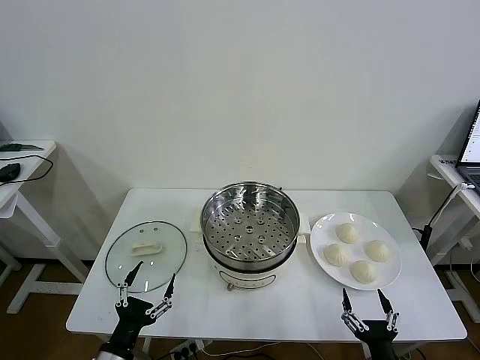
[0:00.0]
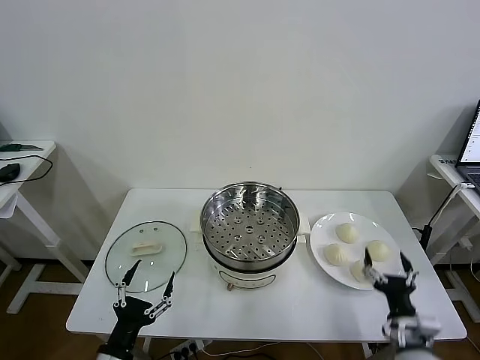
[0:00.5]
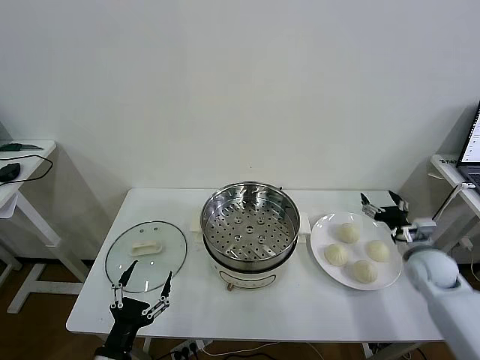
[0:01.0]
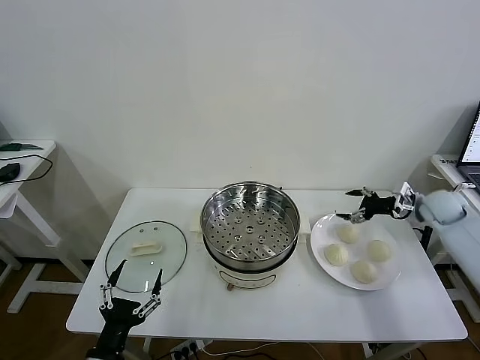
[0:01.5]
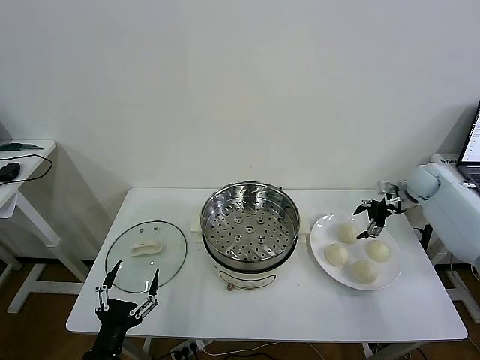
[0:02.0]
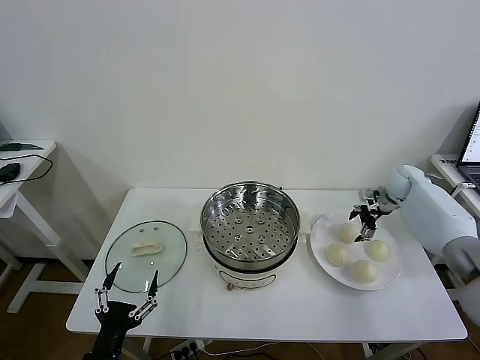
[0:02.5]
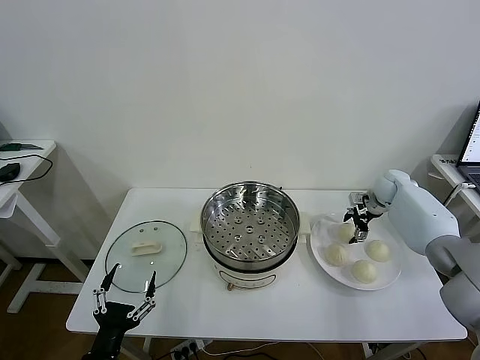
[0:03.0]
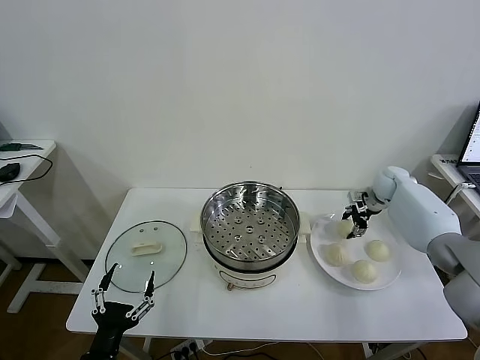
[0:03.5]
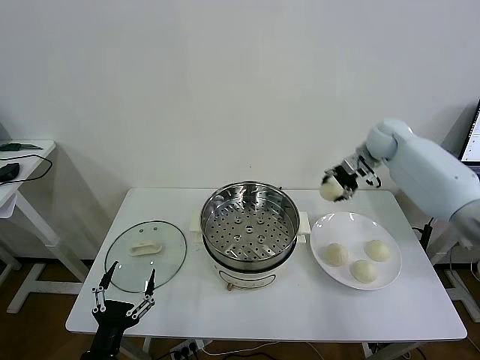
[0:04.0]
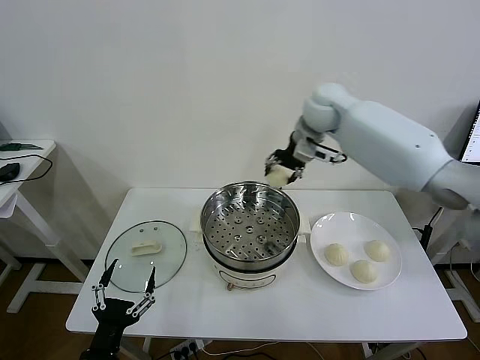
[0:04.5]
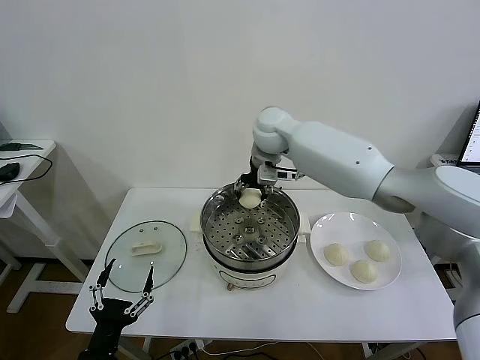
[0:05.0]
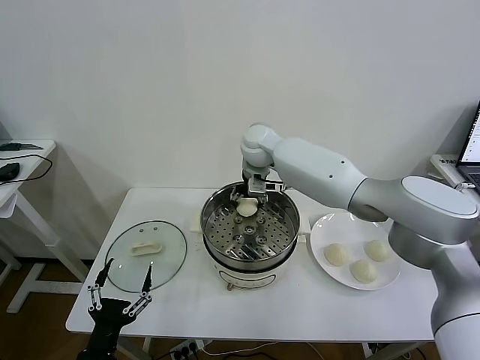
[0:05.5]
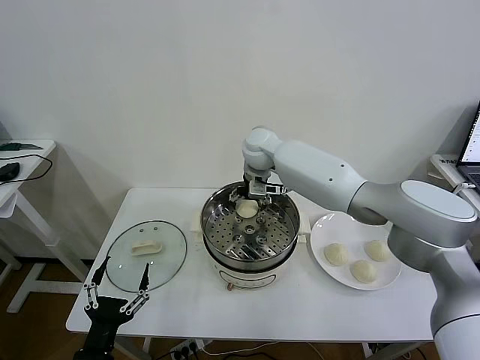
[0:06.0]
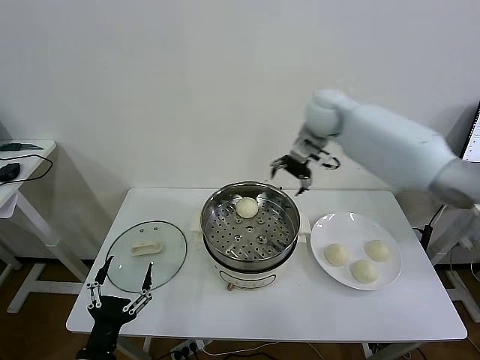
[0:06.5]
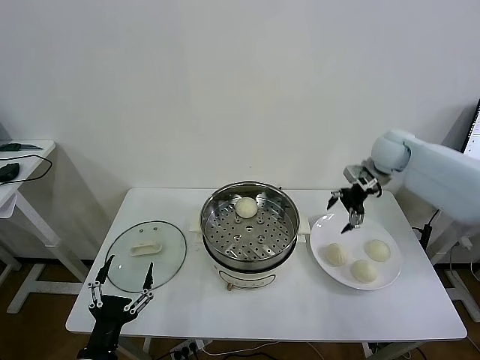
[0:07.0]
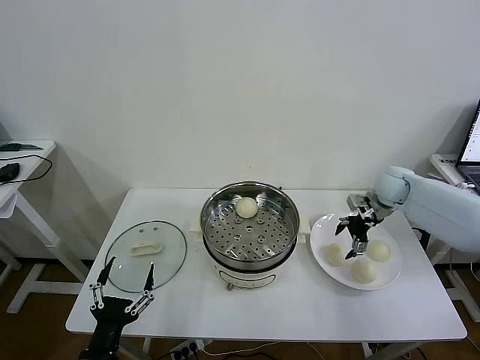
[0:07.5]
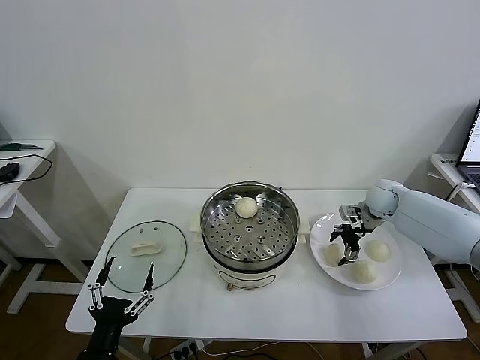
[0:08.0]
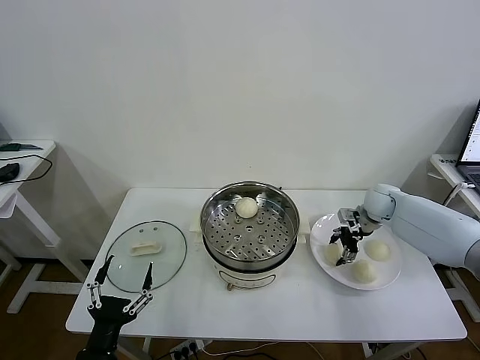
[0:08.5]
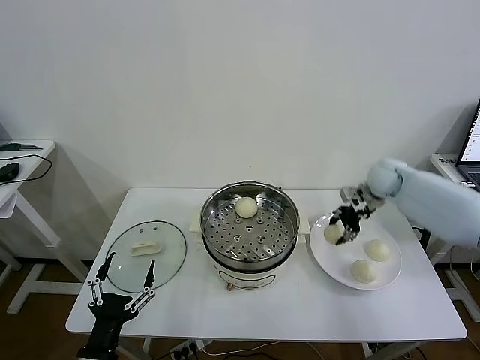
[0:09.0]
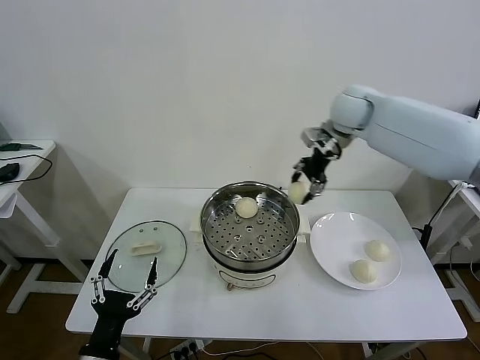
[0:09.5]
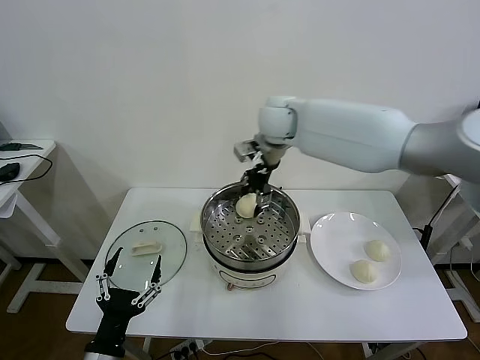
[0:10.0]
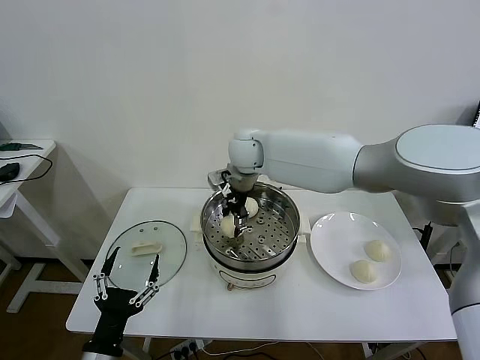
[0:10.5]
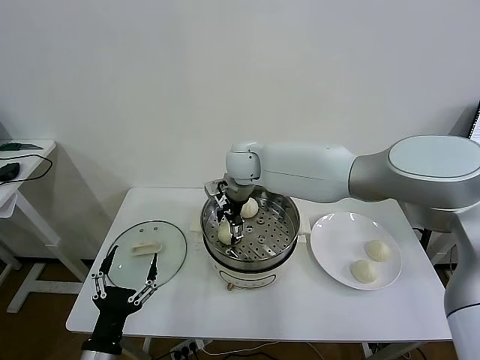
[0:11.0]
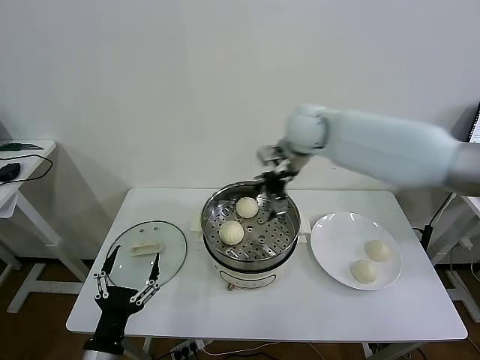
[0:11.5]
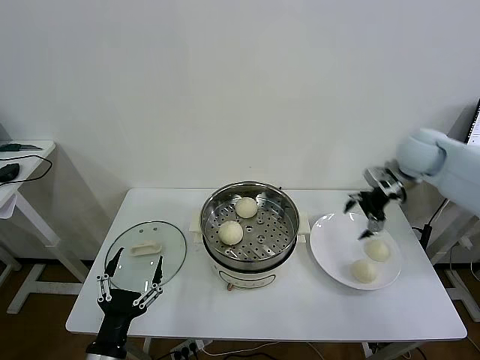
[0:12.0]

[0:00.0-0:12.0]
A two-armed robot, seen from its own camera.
Task of the whole recording: take steamed baozi put them in steamer then cover it.
Step, 0:00.0 to 0:03.0: Grasp the baozi in the plate with right gripper.
Step, 0:03.5 to 0:05.5: Place the baozi on the steamer with right gripper.
Step, 0:06.0 to 0:08.5: Grasp the baozi in the plate with right gripper.
Step, 0:09.0 to 0:11.0: Place the baozi on the steamer with right gripper.
0:02.0 to 0:04.0: The right gripper shifts approximately 20 cm to the left and upward, and closes its fingers.
0:04.0 to 0:06.0: The right gripper moves to the left, approximately 25 cm, and opens its fingers.
0:06.0 to 0:08.0: The right gripper shifts some 35 cm to the right and downward.
0:08.0 to 0:10.0: The right gripper moves to the left and upward, some 40 cm, and closes.
0:10.0 to 0:12.0: The right gripper moves to the right, some 35 cm, and opens up.

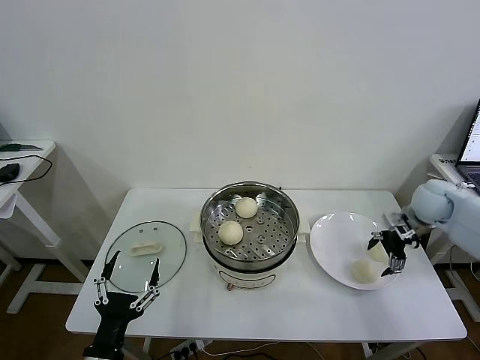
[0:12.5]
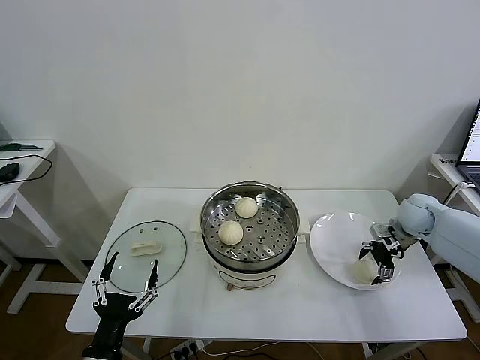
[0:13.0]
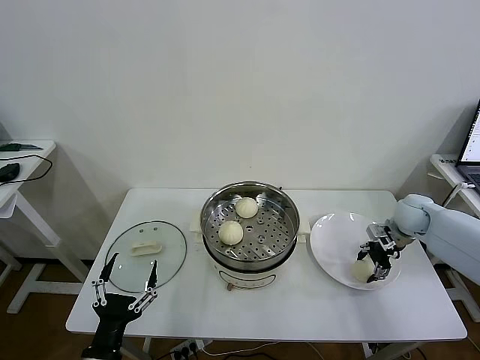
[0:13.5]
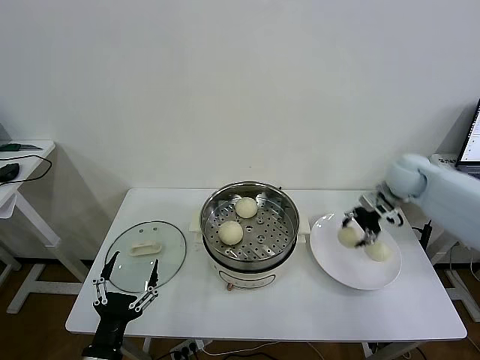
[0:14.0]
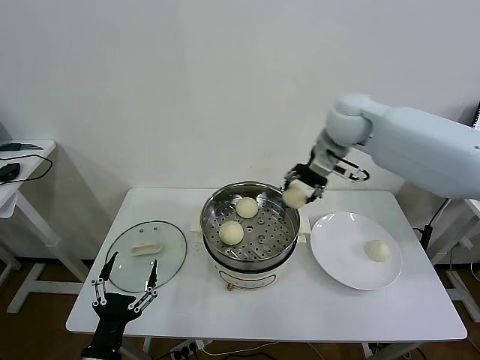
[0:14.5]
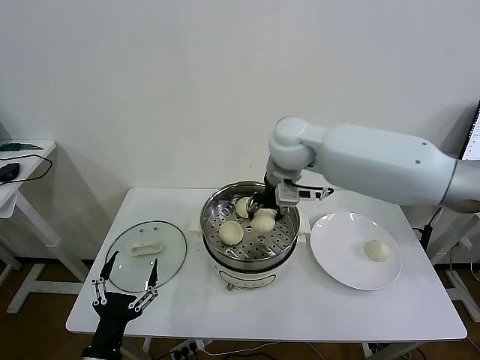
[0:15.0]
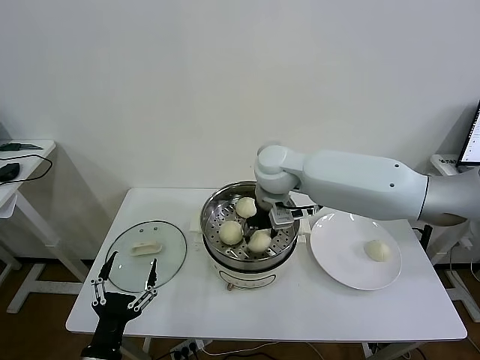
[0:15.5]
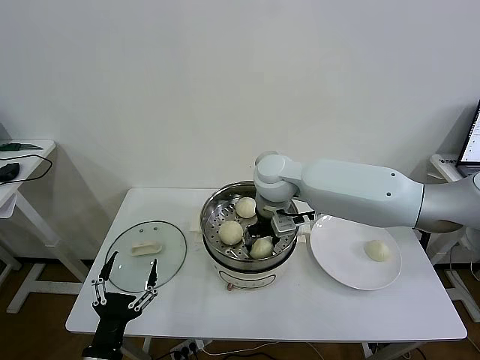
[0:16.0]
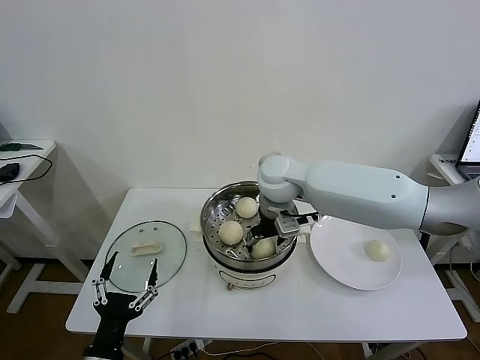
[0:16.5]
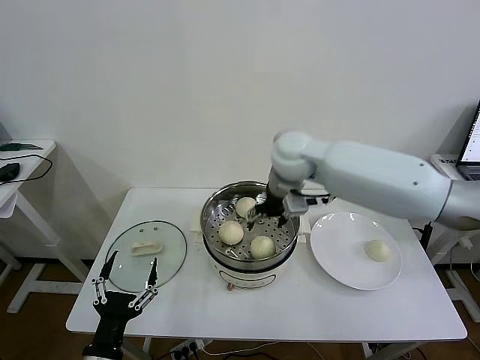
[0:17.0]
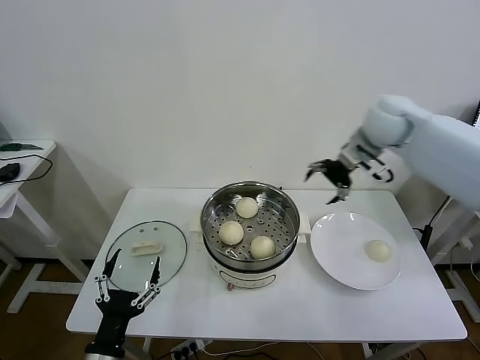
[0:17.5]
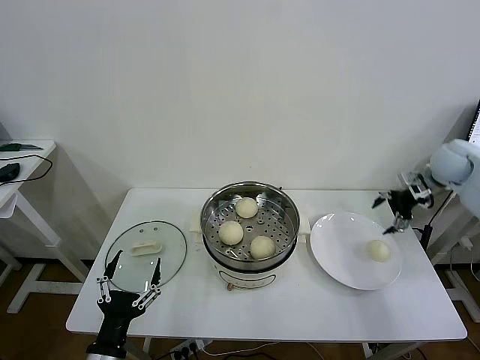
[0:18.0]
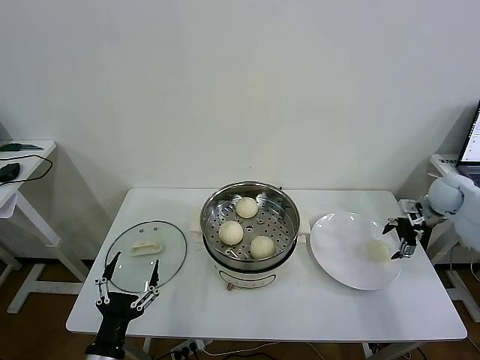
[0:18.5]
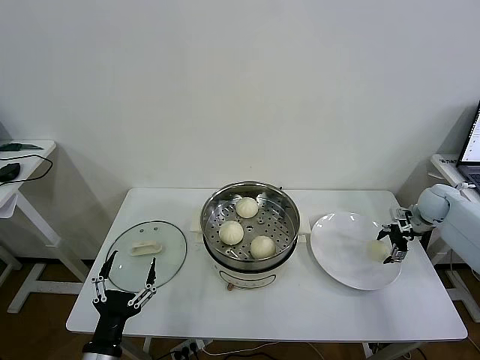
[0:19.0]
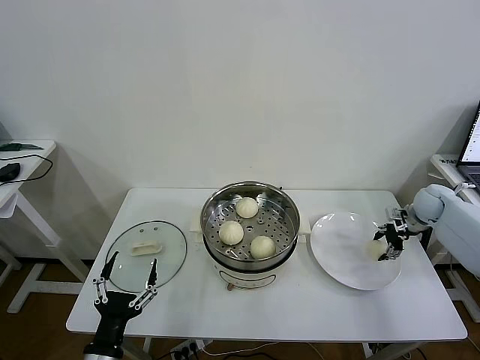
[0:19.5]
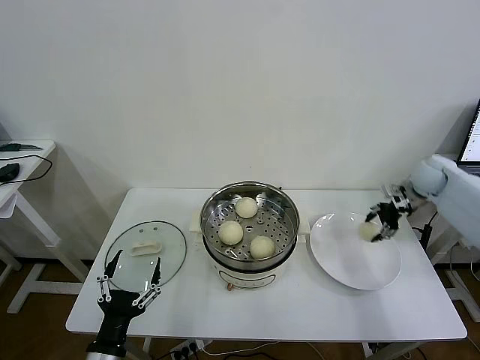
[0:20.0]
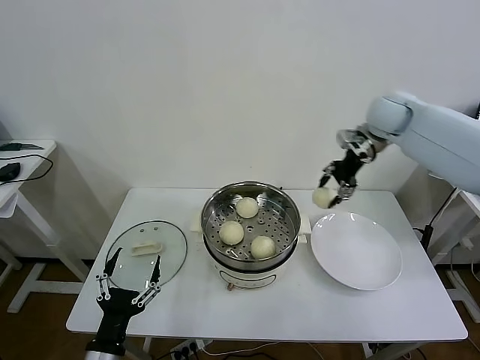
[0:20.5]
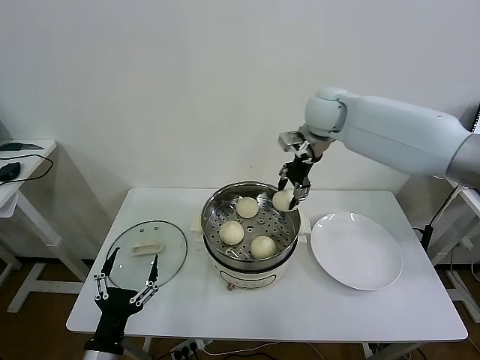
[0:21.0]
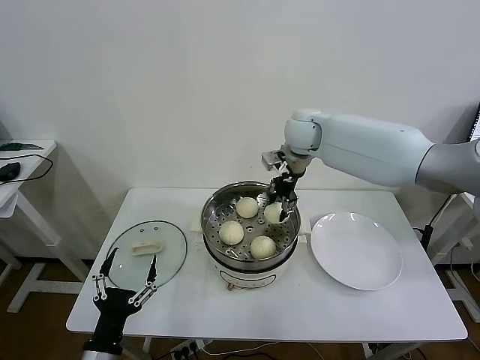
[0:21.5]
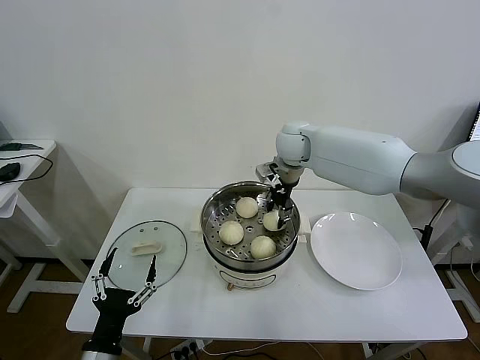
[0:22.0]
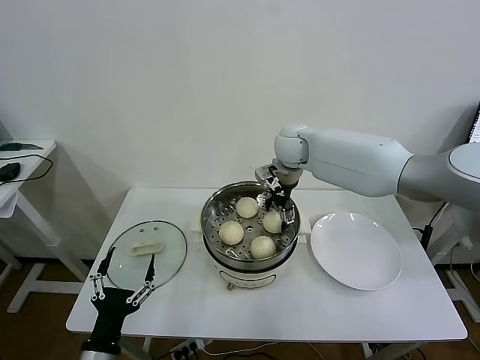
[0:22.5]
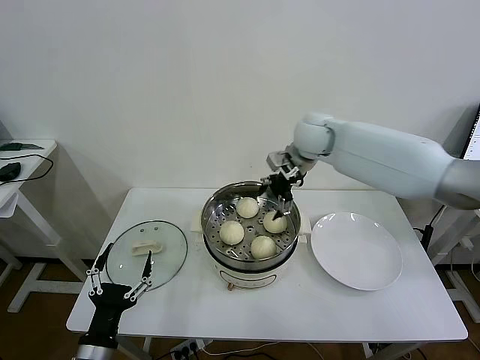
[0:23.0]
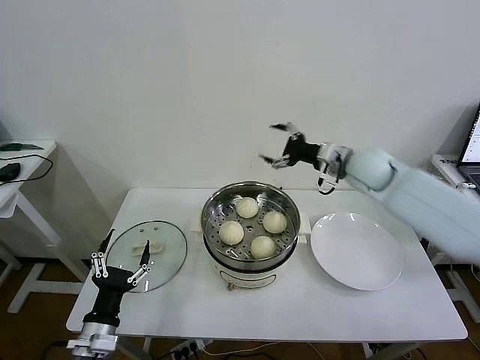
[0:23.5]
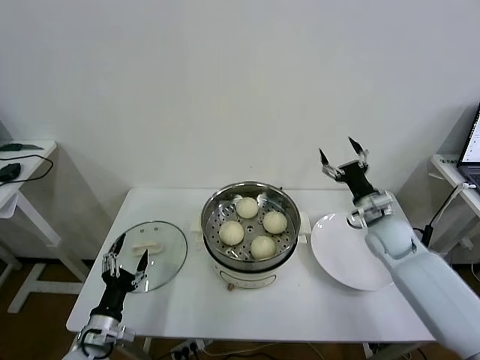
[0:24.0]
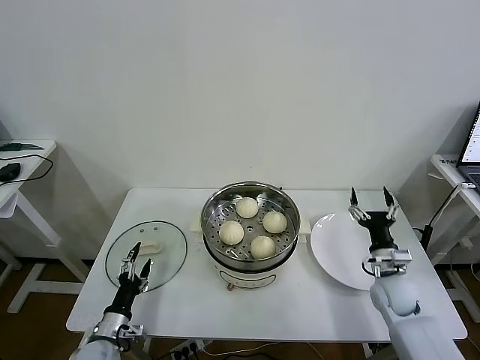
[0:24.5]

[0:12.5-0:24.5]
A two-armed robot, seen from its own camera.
Task of the whole recording: take steamed baozi put them in steamer then cover it.
Step, 0:14.0 to 0:16.5: Place the baozi on the steamer with right gripper.
Step, 0:17.0 to 0:19.0: Grasp the baozi in the plate with right gripper.
Step, 0:19.5 to 0:22.5: Place the baozi on the steamer with right gripper.
0:12.5 to 0:14.5: The right gripper moves to the left and upward, roughly 30 cm, and closes up.
0:14.5 to 0:16.5: The right gripper travels to the left, downward and backward by some 15 cm, and opens up.
0:16.5 to 0:18.5: The right gripper shifts roughly 40 cm to the right.
0:18.5 to 0:20.5: The right gripper shifts about 30 cm to the left and upward, and closes up.
0:20.5 to 0:22.5: The right gripper goes roughly 20 cm to the left and downward, and opens its fingers.
0:22.5 to 0:24.5: The left gripper goes approximately 20 cm downward, forward and to the left. The right gripper travels downward, to the right and backward by roughly 40 cm.

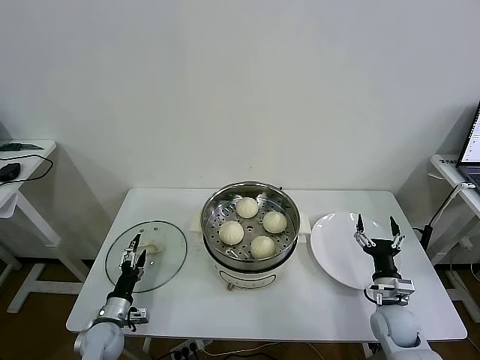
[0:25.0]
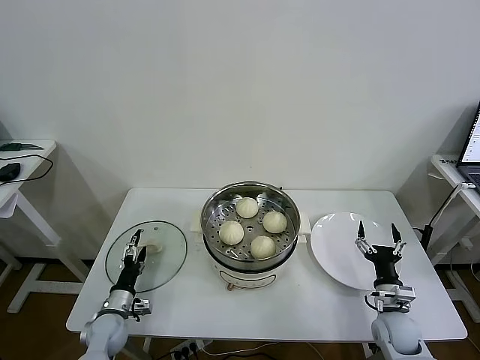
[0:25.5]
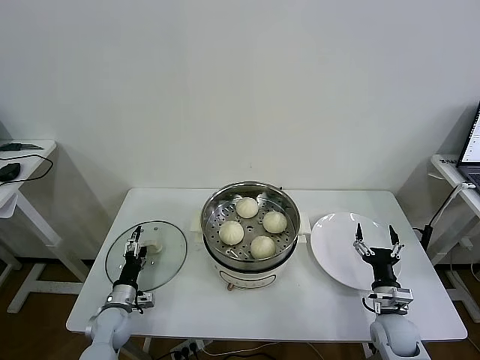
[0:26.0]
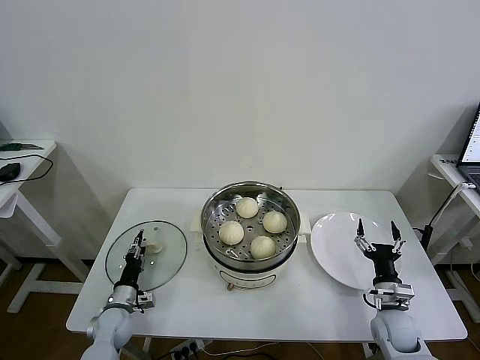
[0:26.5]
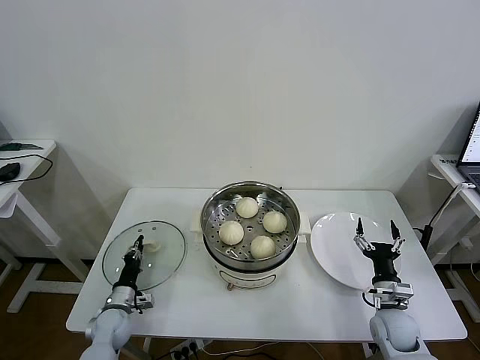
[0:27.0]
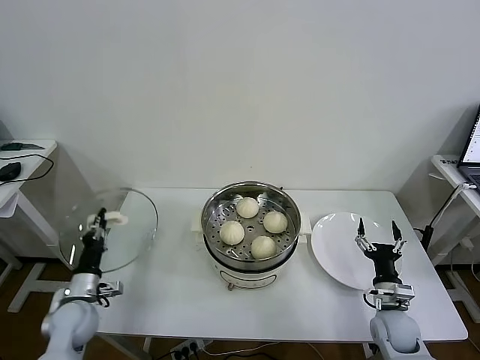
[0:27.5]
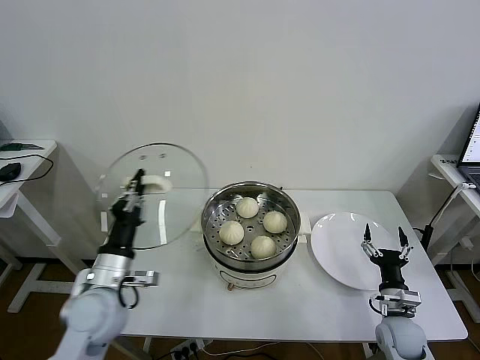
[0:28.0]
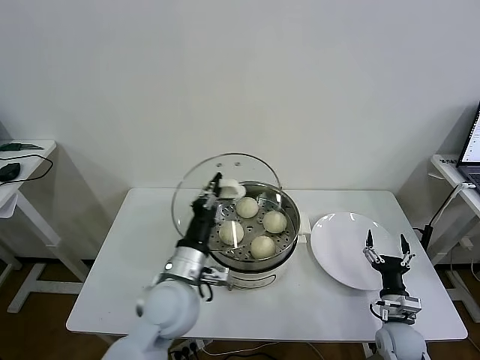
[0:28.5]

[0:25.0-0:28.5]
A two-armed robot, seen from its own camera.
Task of the whole recording: take steamed baozi put them in steamer then cover it.
0:25.0 to 0:27.0: The left gripper moves some 5 cm, and closes its fingers.
0:27.0 to 0:28.5: The left gripper travels upward and to the right by some 30 cm.
